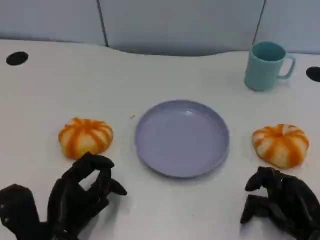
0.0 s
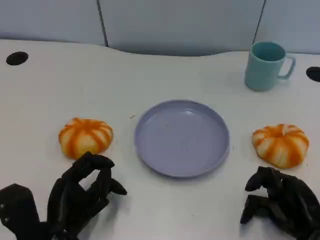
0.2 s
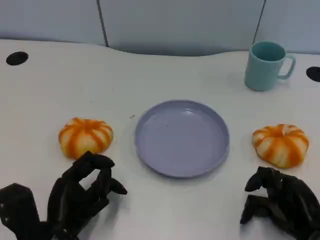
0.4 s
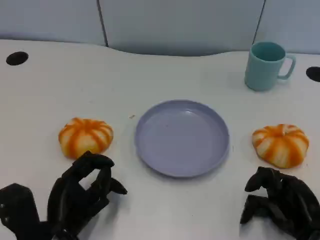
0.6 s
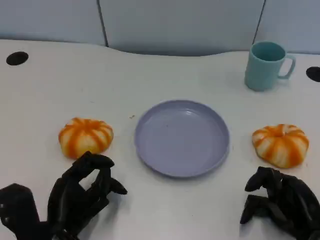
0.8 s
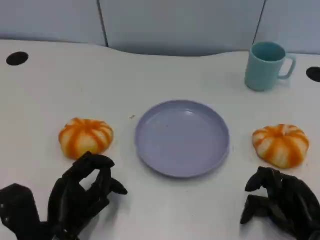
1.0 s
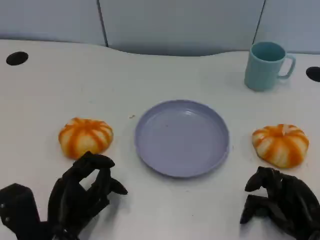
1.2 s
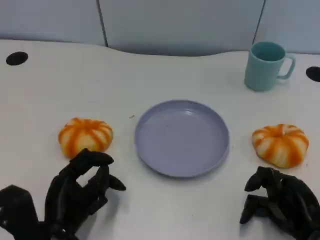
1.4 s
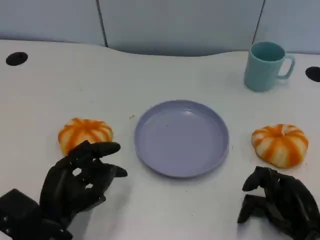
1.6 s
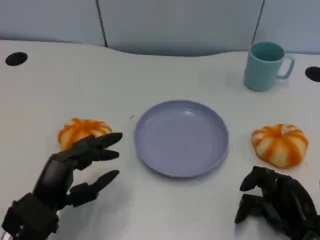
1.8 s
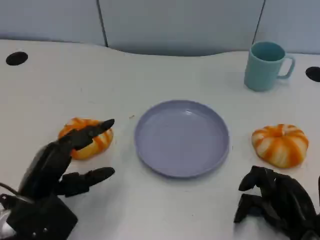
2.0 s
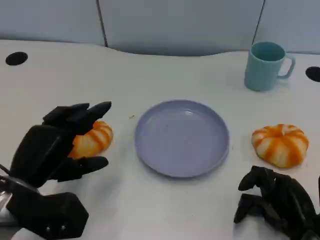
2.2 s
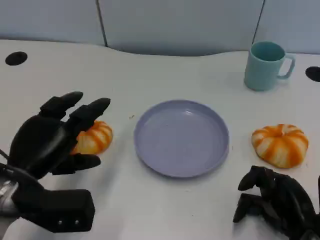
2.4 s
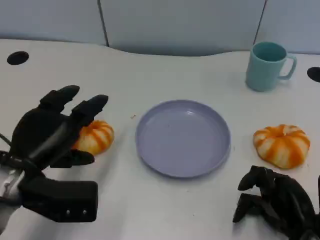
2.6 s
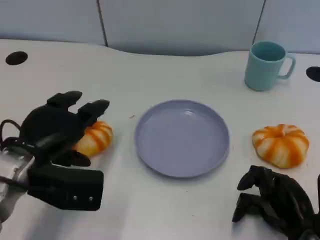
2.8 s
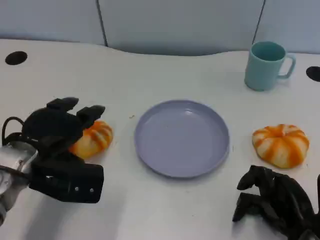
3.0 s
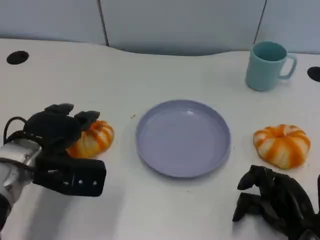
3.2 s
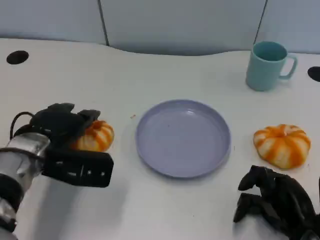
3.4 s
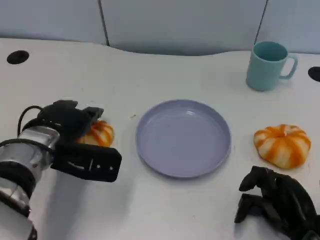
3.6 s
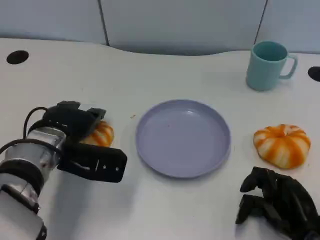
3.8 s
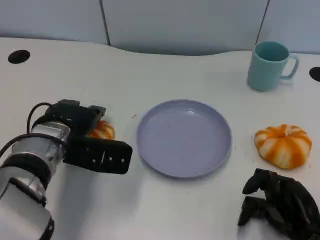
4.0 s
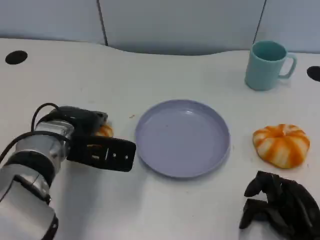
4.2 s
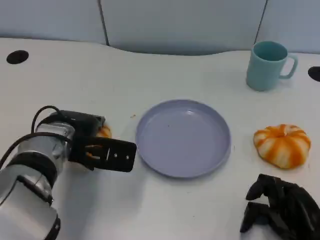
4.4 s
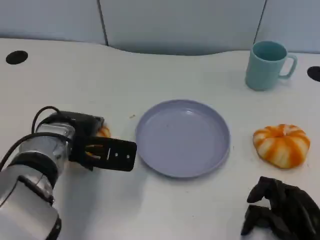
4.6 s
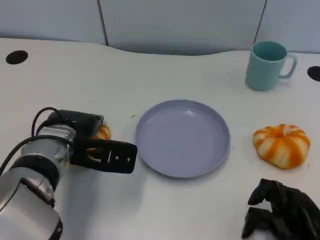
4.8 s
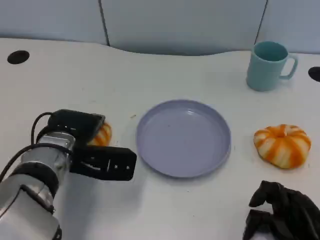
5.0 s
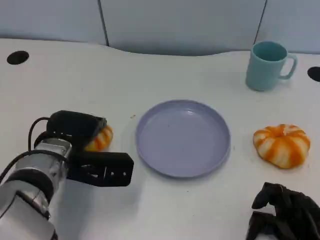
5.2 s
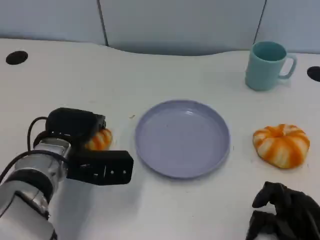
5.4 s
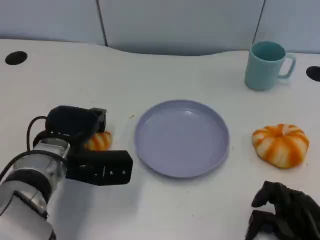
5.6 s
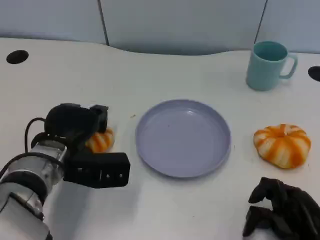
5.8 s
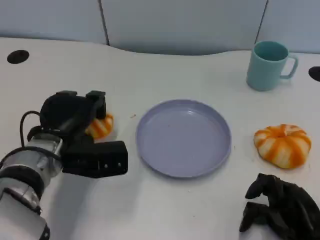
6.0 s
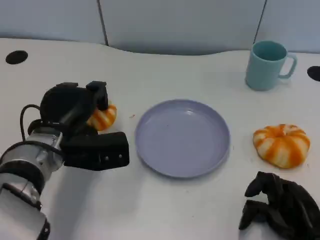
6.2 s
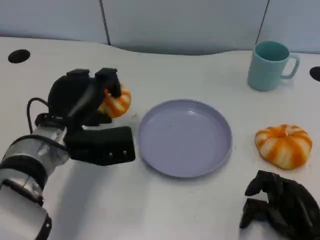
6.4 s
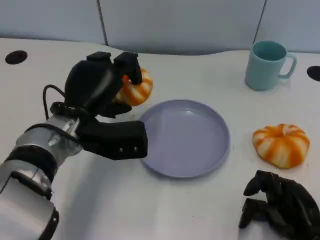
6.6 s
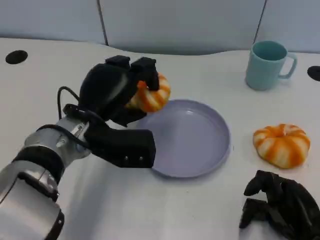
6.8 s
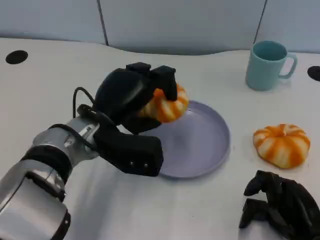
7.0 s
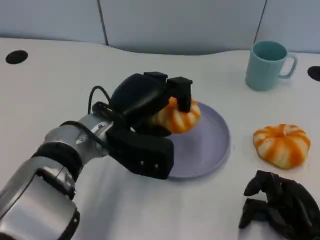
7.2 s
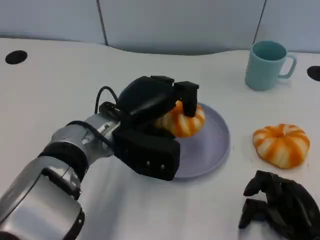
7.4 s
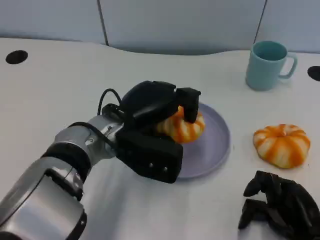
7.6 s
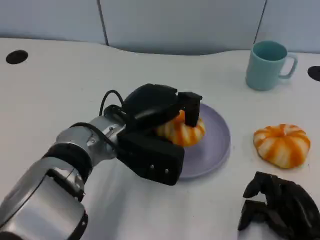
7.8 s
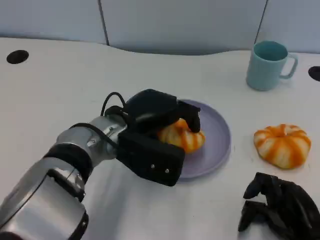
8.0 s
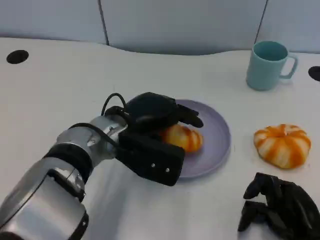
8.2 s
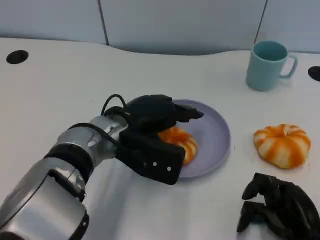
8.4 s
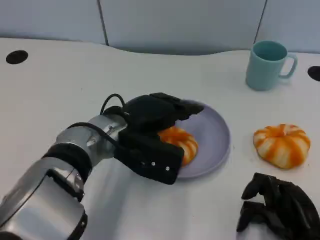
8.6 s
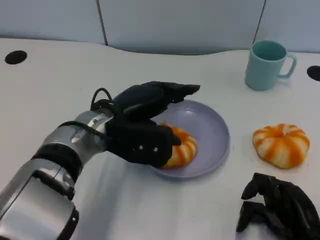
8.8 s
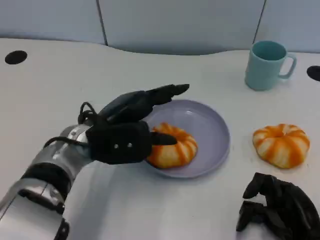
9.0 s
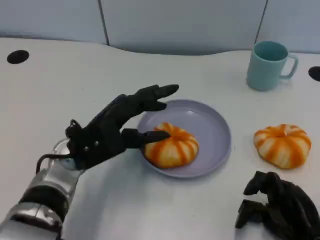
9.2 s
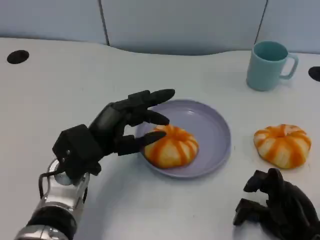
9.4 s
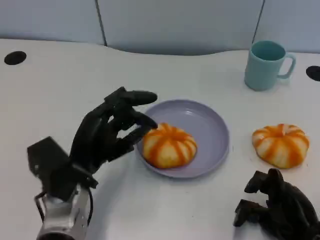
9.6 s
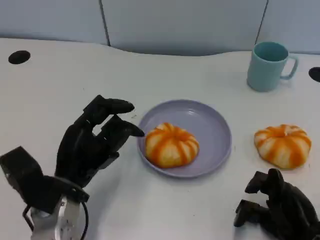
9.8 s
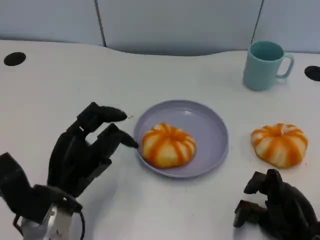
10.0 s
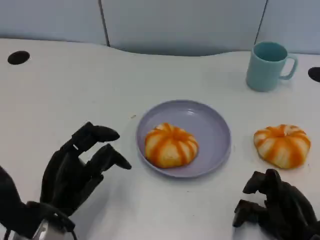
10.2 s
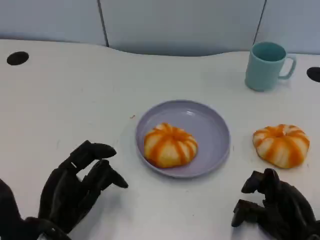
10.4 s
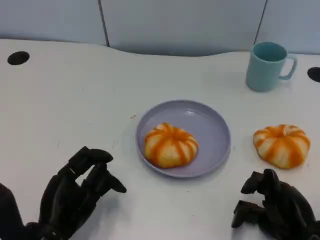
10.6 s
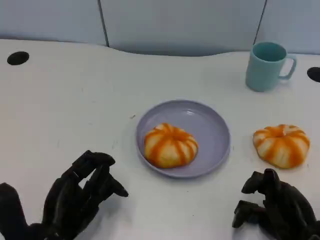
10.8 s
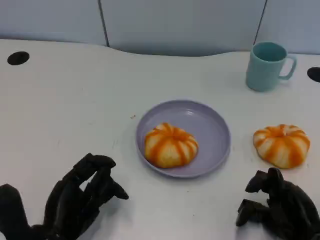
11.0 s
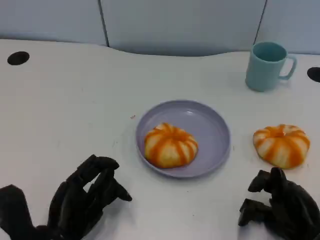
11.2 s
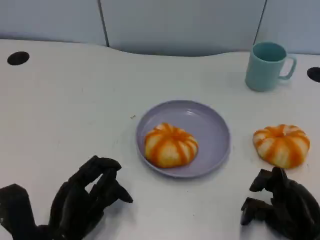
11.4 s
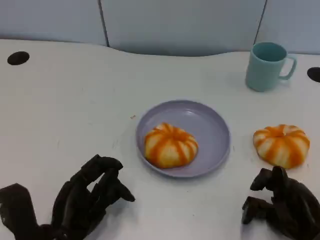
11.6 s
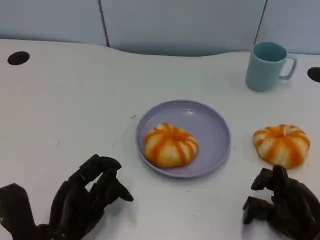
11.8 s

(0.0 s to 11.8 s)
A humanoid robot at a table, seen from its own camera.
Task of the whole recording: Grasp the bread from the table and place it into the plate.
0.0 s - 1.4 s: The hands stay close to where they were, moving slightly.
1.4 s - 3.0 s: The left hand travels forward and upward by about 10 cm.
3.0 s - 4.4 s: The left hand shifts about 5 cm to the right.
6.0 s - 7.4 s: The left hand moves to the right, some 10 cm.
7.4 s - 8.8 s: The hands make only small movements.
8.8 s - 10.4 s: The left hand shifts roughly 20 cm backward, to the left and downward.
10.4 s - 11.8 s: The hands stay close to where they were, moving slightly.

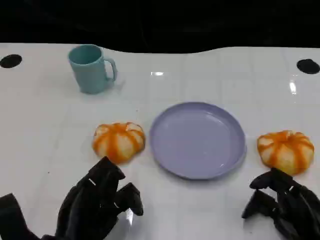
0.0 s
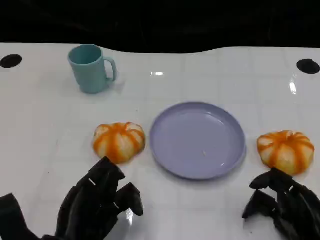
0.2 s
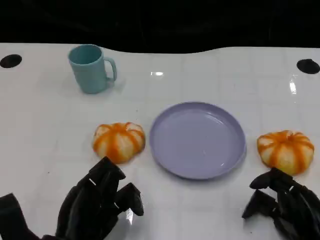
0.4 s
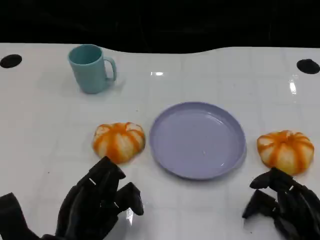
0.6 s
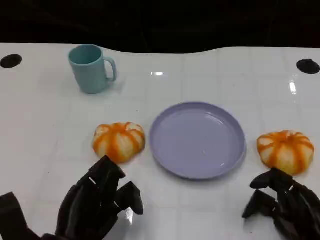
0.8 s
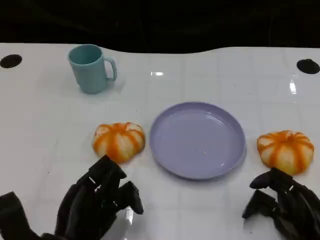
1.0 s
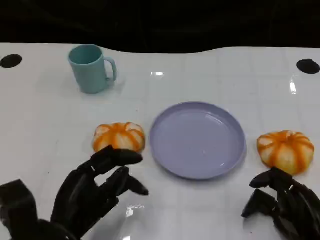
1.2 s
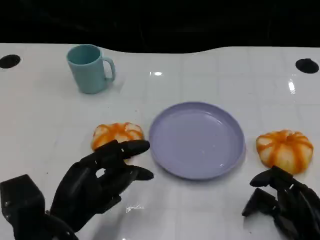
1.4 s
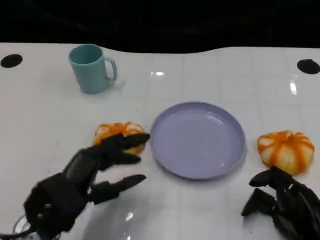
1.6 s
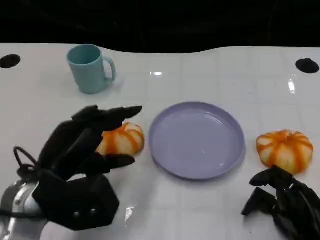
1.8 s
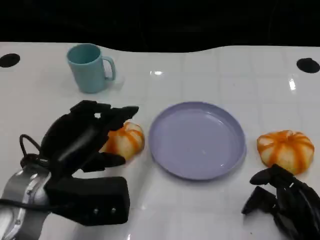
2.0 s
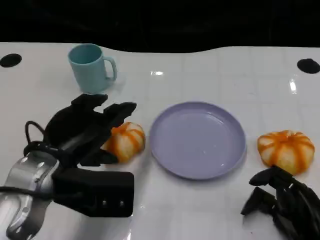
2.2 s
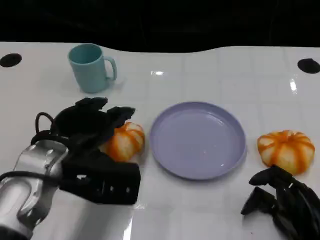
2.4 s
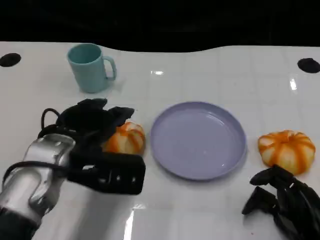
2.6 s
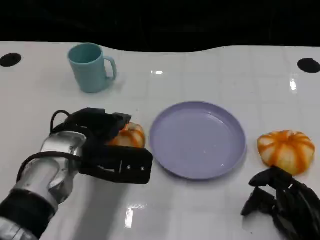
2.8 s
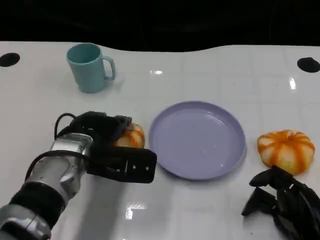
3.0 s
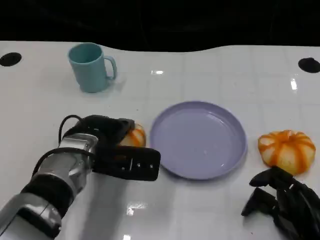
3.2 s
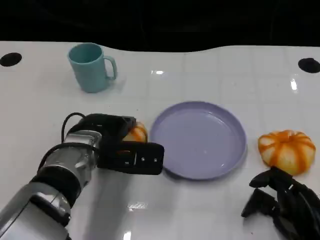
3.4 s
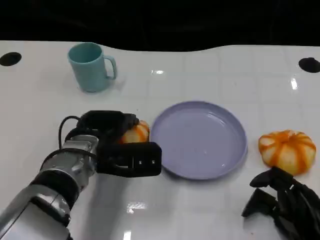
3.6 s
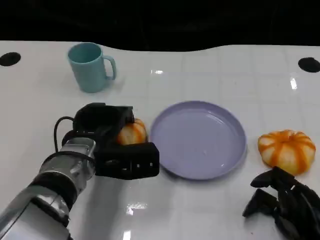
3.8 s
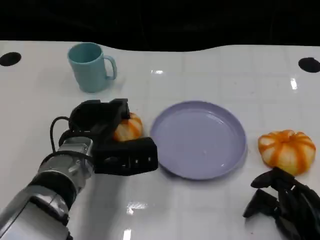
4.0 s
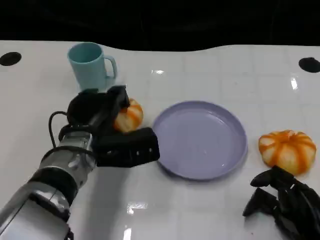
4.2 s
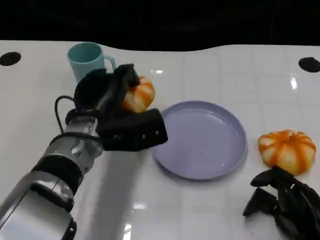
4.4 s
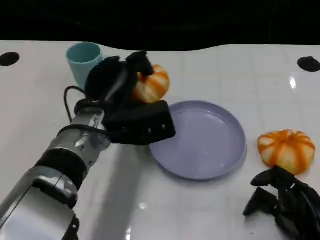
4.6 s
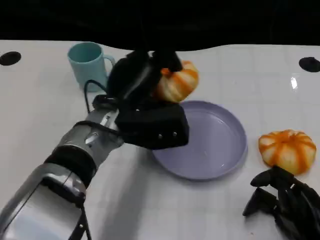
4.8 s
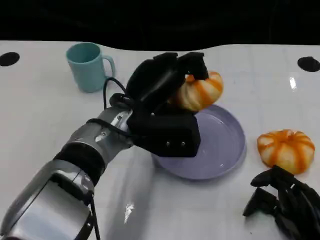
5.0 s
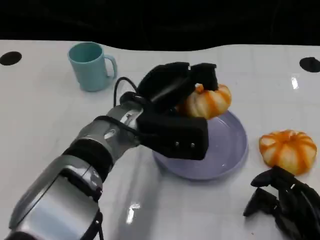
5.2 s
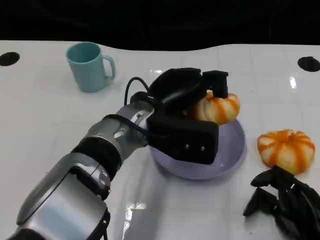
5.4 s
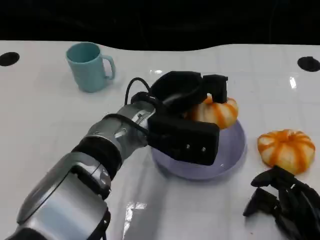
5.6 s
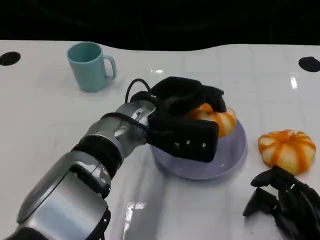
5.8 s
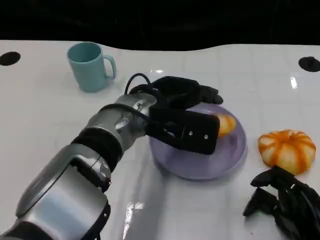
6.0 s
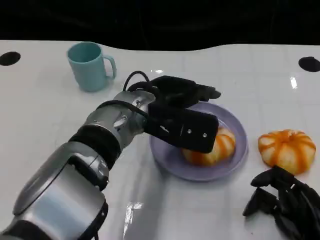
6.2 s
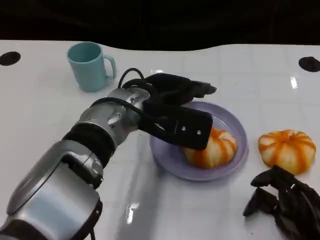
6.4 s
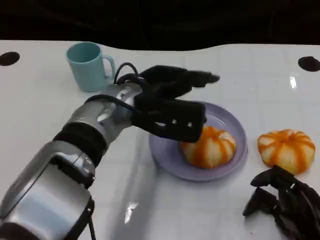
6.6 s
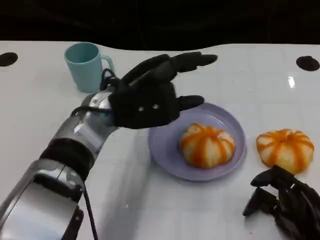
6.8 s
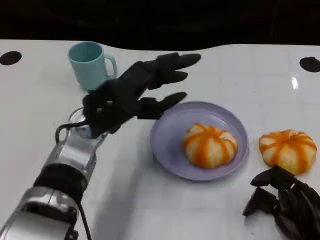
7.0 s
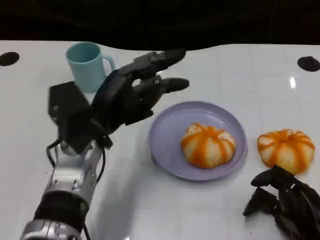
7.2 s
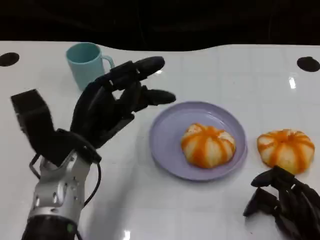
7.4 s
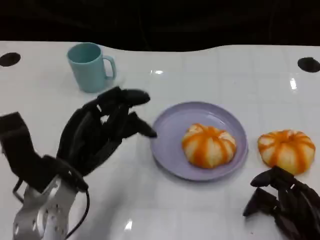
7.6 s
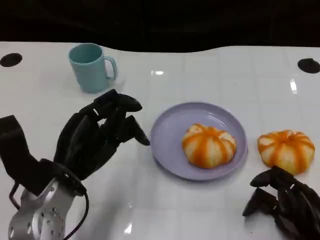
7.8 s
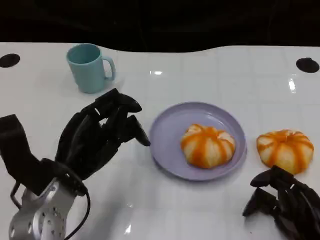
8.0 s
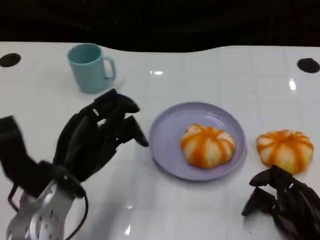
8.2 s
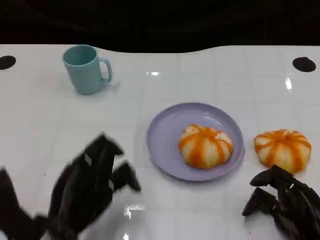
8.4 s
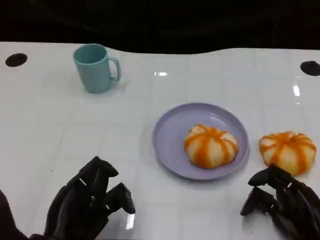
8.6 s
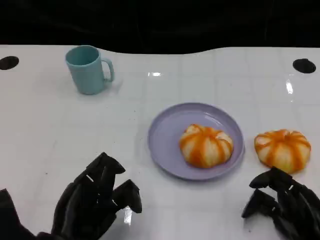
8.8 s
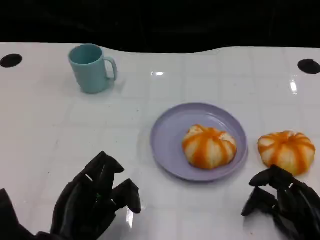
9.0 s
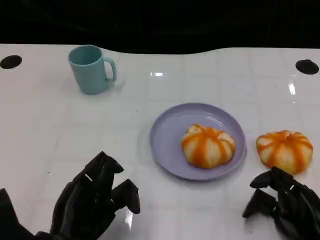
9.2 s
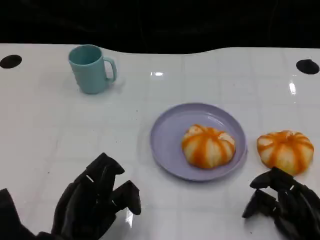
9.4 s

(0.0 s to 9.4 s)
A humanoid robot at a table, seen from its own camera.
Task of the whole recording: Grasp the bread from the table and place it into the plate.
0.0 s - 1.6 s: The left hand heads upward, covering some 5 cm.
1.6 s - 3.2 s: The left hand goes roughly 10 cm forward and to the right.
3.2 s - 4.8 s: The left hand heads to the right, covering about 5 cm.
6.2 s - 7.8 s: The left hand goes roughly 15 cm to the left, backward and downward.
7.8 s - 9.4 s: The left hand heads backward, covering some 10 cm.

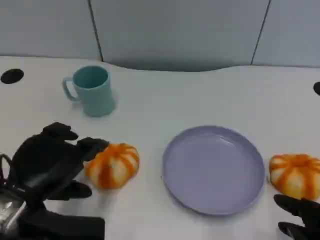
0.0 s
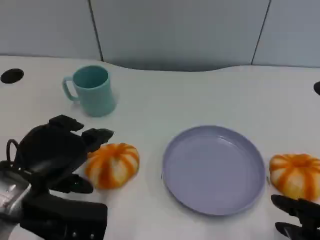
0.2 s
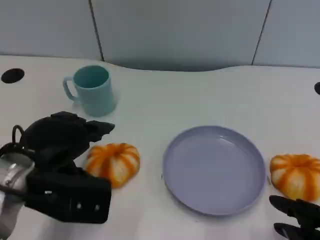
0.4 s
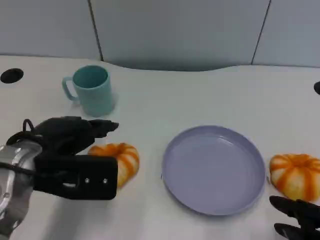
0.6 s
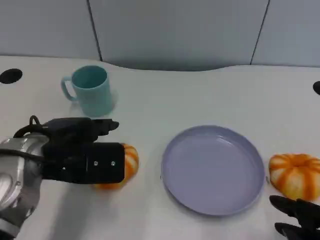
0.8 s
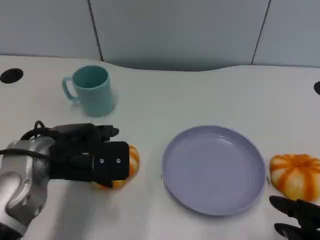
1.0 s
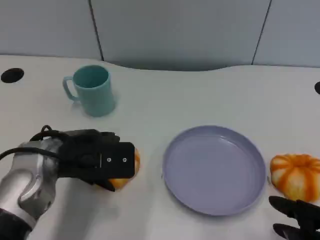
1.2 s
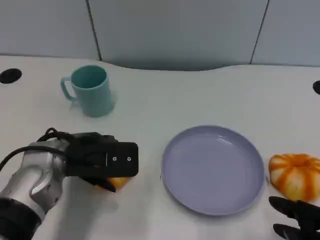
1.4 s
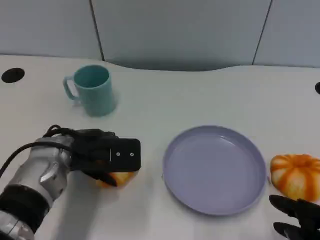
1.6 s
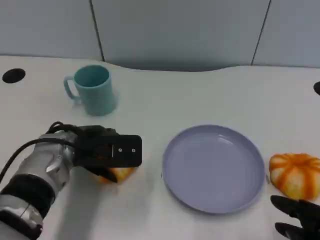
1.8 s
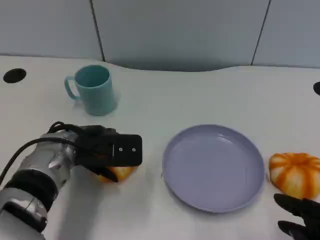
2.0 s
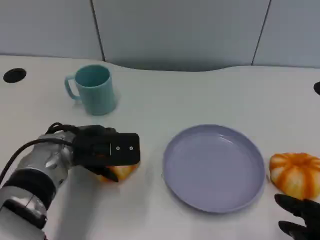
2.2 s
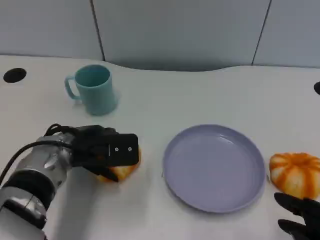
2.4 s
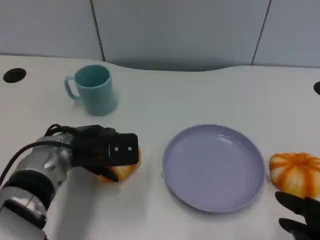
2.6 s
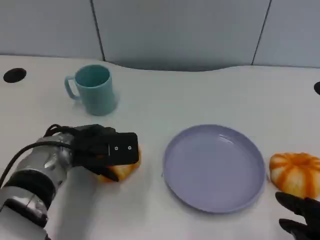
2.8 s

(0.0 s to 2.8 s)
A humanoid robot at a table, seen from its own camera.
Task of the whole recording: Grasp the bread from the table and place it into the plate.
0.0 s - 1.4 s: The left hand goes roughly 10 cm forward.
1.4 s - 2.8 s: The hands make only small movements.
